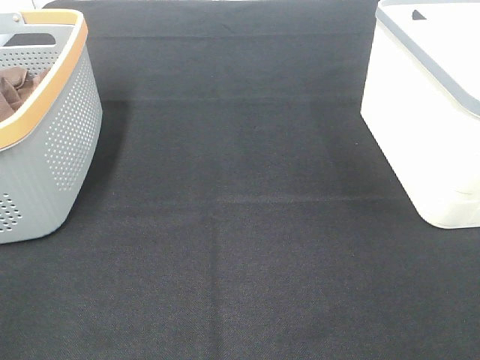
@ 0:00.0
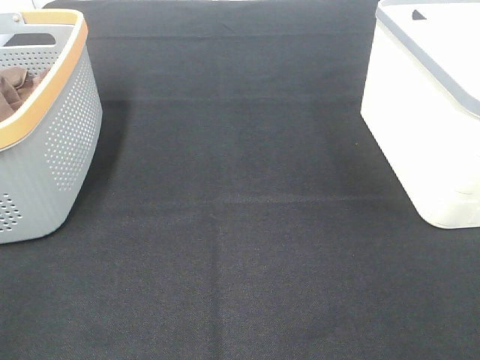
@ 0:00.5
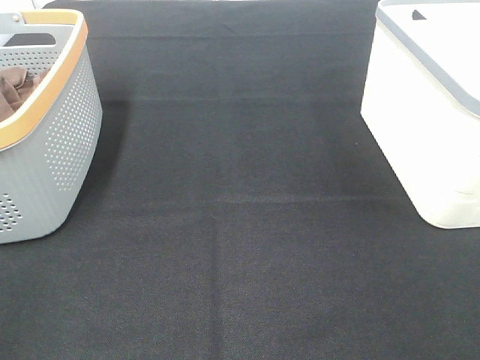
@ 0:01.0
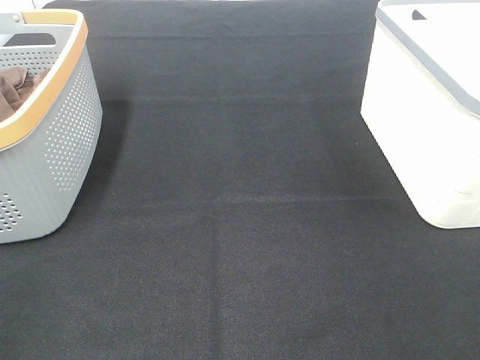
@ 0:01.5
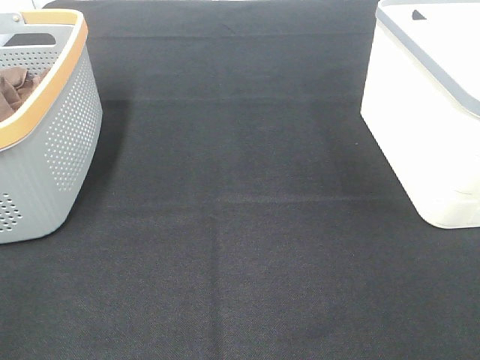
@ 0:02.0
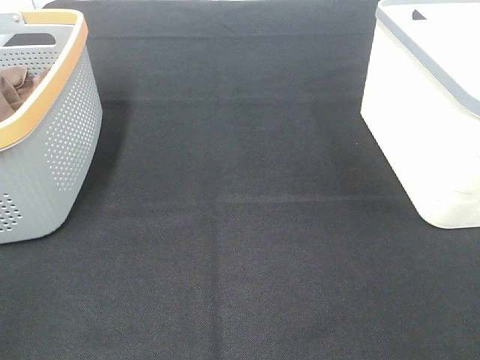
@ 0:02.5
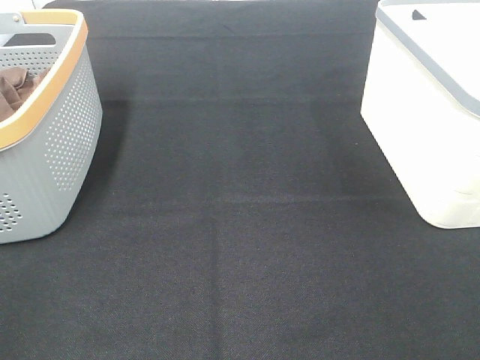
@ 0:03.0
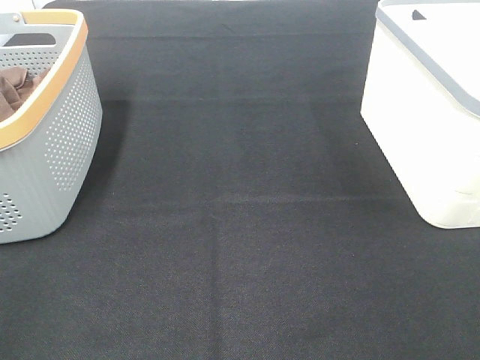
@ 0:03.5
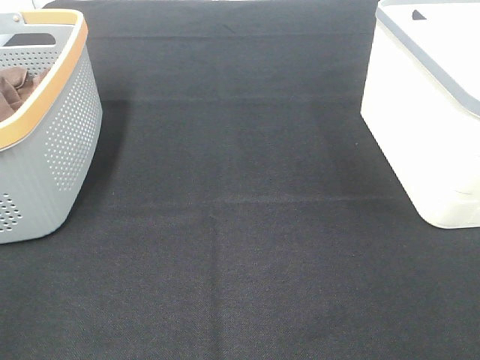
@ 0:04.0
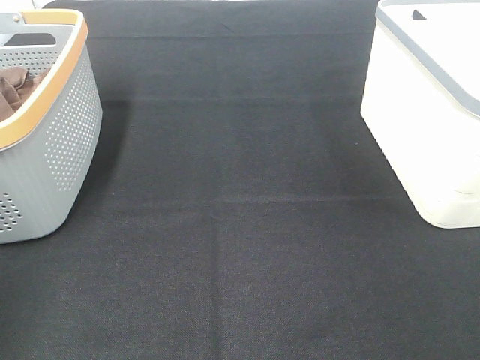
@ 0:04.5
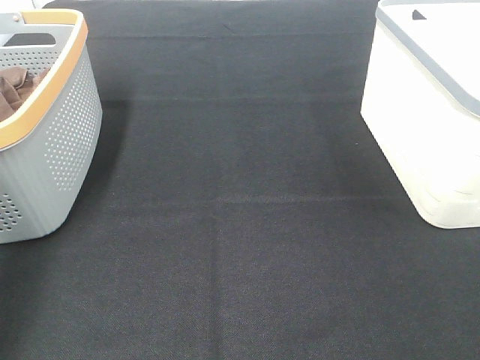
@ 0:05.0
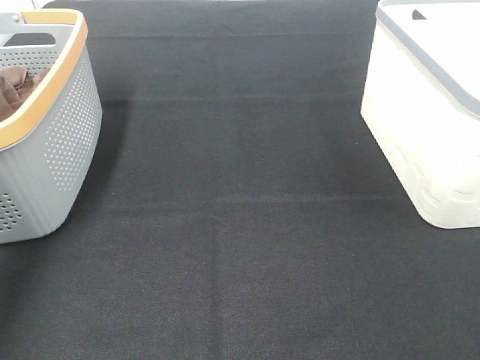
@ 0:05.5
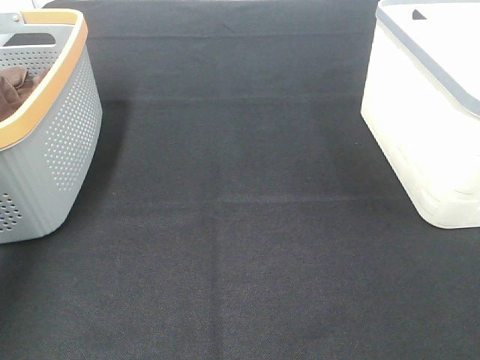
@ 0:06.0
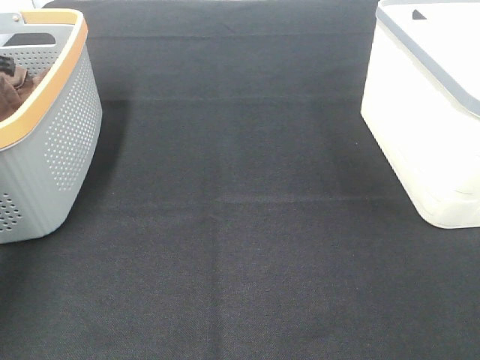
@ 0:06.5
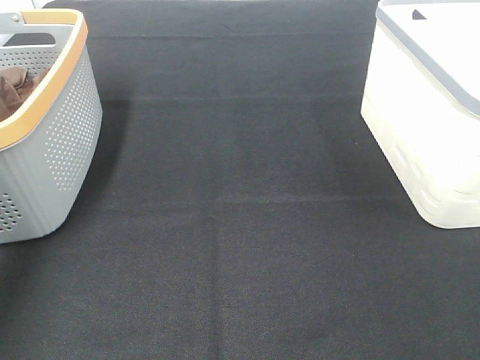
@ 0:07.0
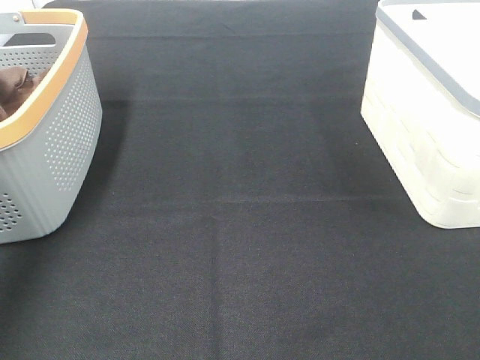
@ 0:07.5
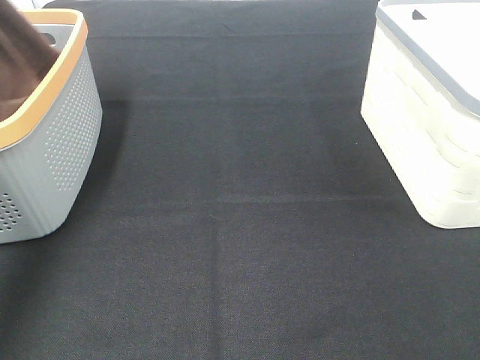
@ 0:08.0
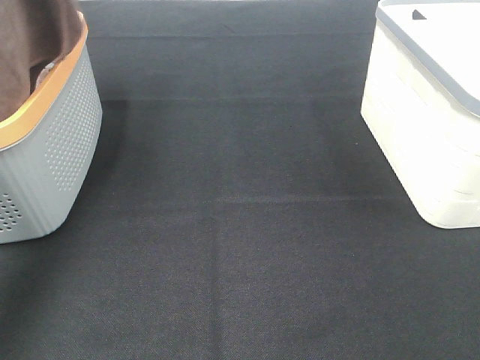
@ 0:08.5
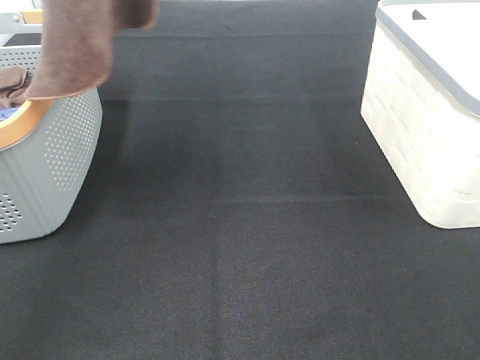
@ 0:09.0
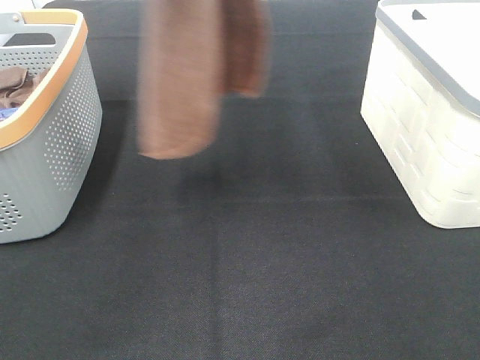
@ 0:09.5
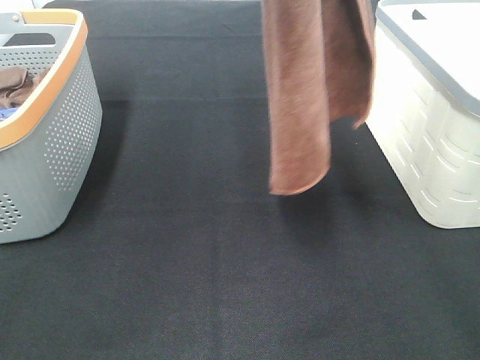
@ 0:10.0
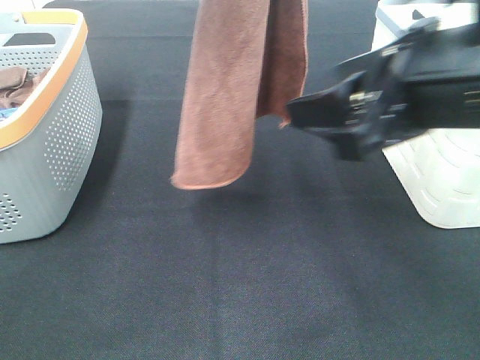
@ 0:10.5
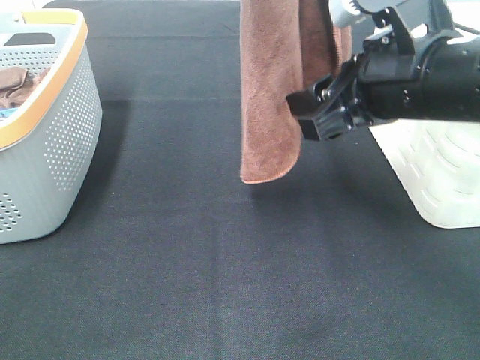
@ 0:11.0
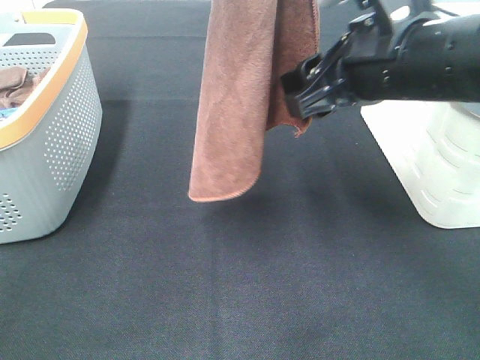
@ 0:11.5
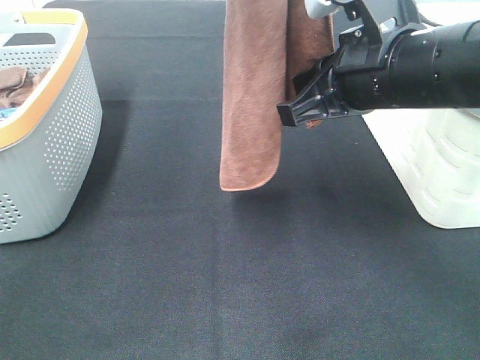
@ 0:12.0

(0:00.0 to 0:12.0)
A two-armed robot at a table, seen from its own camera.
Task of the whole recording: Remove the towel and place it.
0:00.0 - 0:04.0: The two grippers keep their place.
0:04.0 - 0:06.0: The left gripper is displaced forward by some 40 cm.
0:06.0 - 0:08.0: The left gripper is displaced upward and backward by some 20 cm, and closes its fingers.
0:08.0 - 0:10.0: The left gripper heads to the right, covering approximately 25 cm, while the right gripper moves forward and upward, about 15 cm.
0:10.0 - 0:12.0: The right gripper travels forward, to the left and downward by roughly 20 cm, and closes.

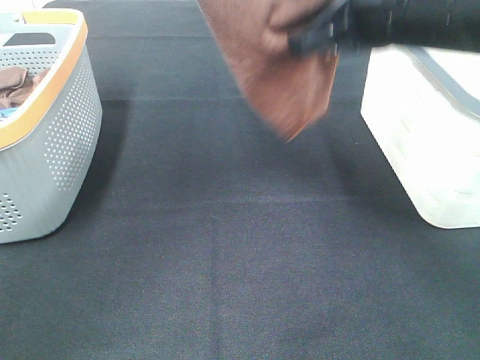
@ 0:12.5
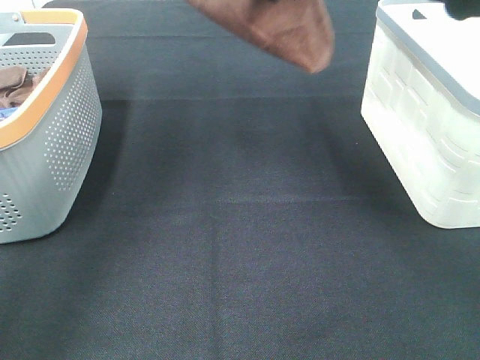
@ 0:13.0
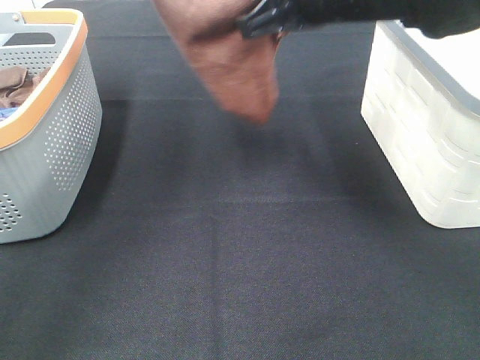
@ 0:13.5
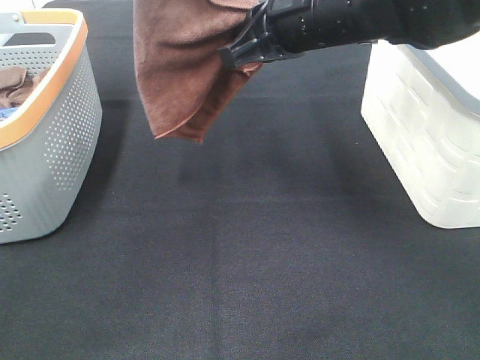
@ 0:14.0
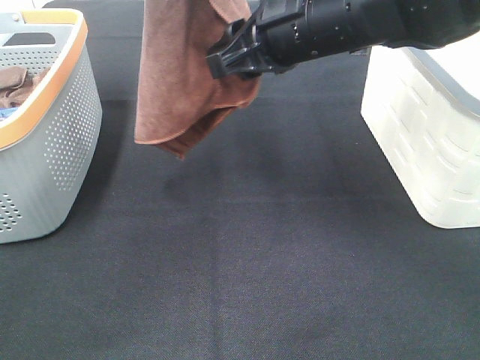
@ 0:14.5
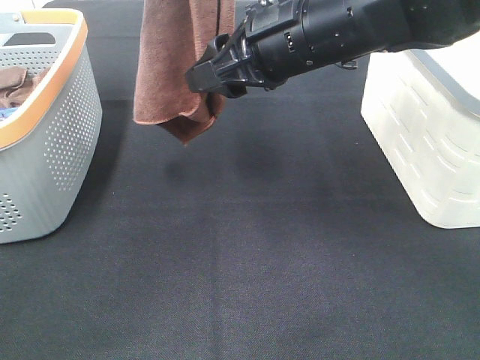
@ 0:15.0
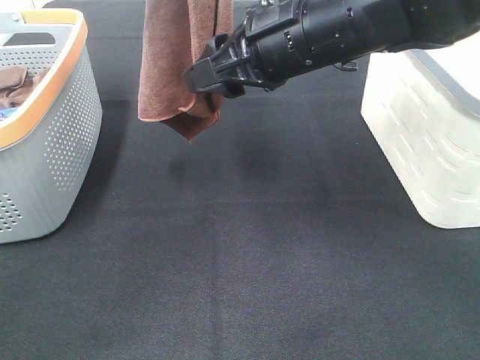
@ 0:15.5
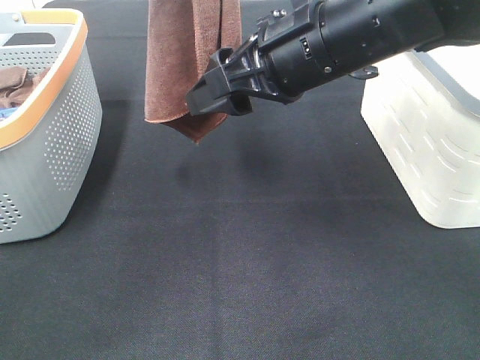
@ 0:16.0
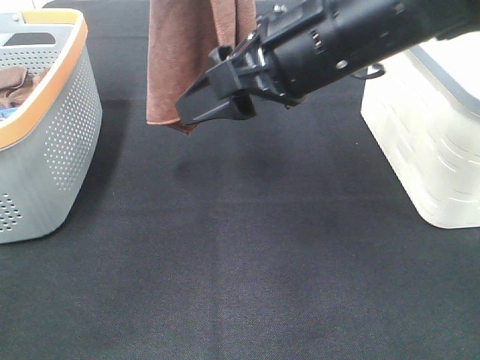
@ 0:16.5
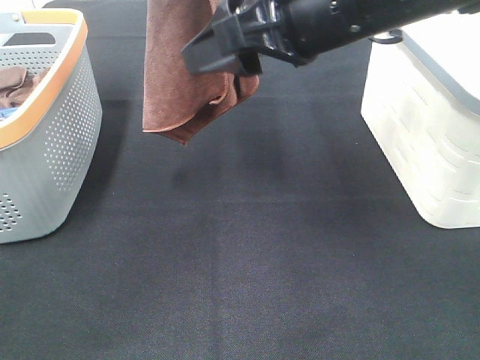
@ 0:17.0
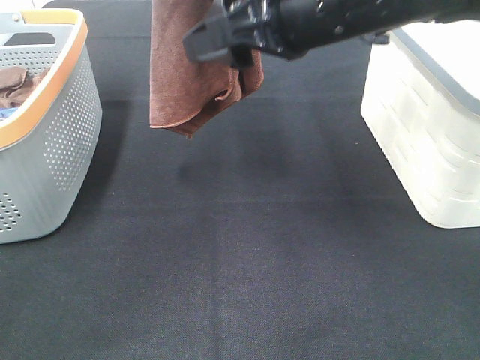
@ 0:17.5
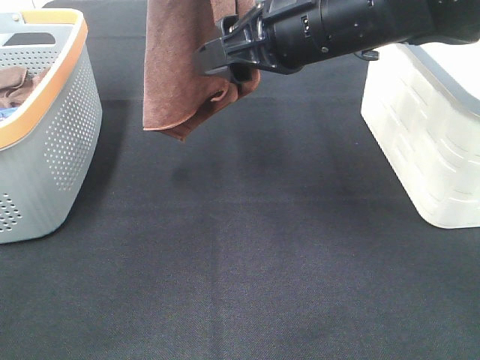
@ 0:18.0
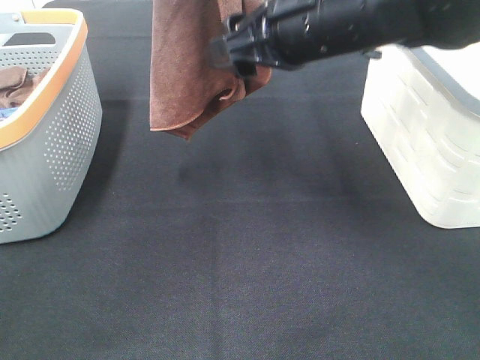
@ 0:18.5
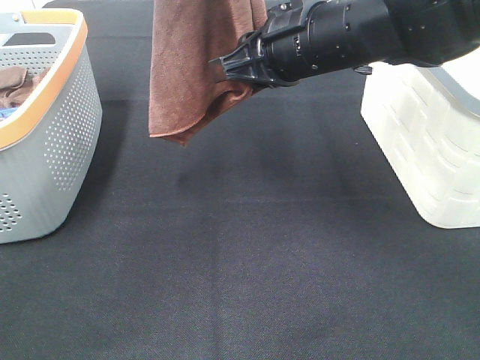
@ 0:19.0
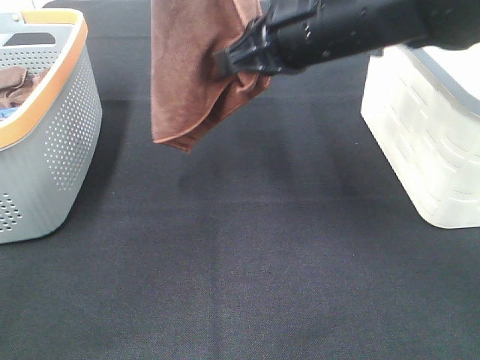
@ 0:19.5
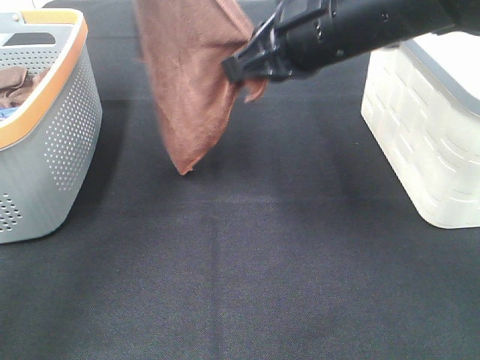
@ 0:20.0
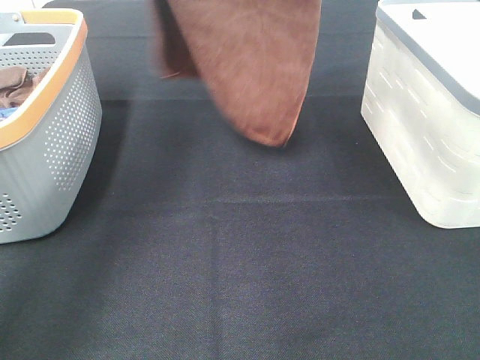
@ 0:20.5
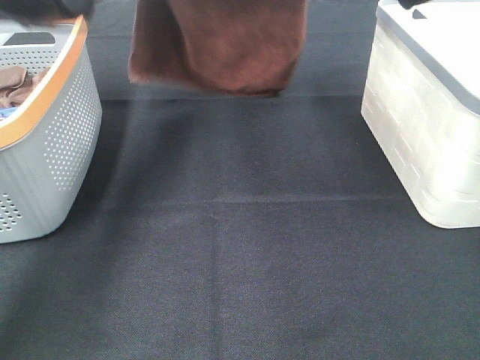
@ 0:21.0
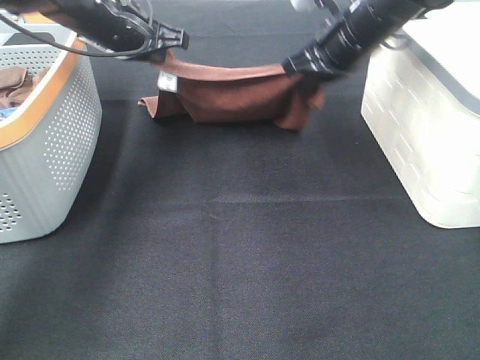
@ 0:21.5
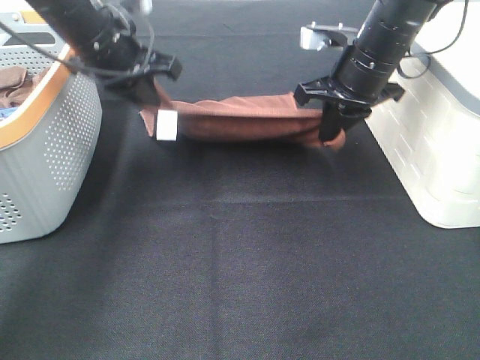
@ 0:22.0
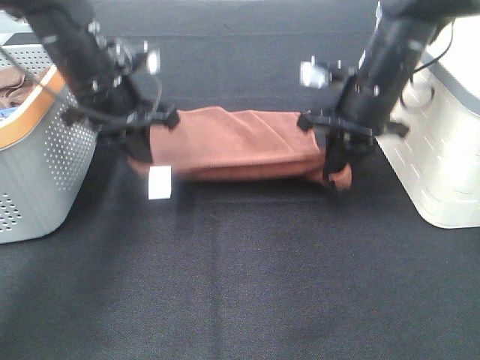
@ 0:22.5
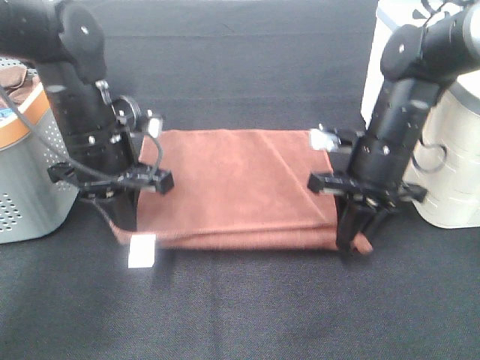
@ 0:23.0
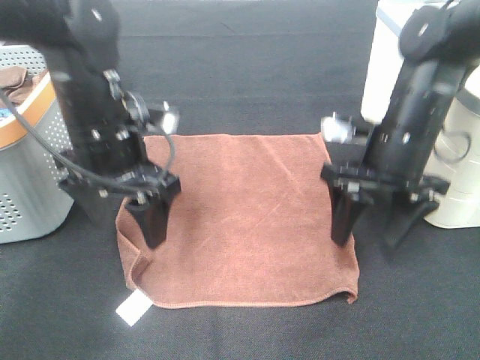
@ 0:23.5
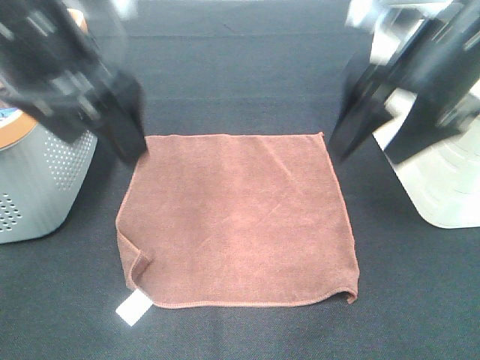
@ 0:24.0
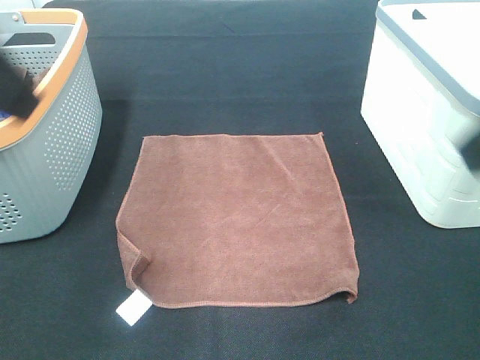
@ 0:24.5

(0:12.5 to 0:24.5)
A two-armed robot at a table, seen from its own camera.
Task of the whole recording: Remove the towel and place it.
Step, 0:12.5 - 0:16.0: Right hand: grab a corner of the brown towel and straighten it.
Step, 0:16.5 - 0:18.5: Right hand: spread the brown towel flat on the table.
0:12.5 - 0:14.5: The right gripper goes some 5 cm to the left, and opens its fingers. The left gripper goes downward and returns, about 5 cm each way.
0:14.5 - 0:16.5: The right gripper is displaced backward by roughly 5 cm.
0:16.5 - 0:18.5: The right gripper goes approximately 5 cm forward.
0:18.5 - 0:20.5: The left gripper goes about 15 cm forward and downward. The right gripper travels forward and to the right by roughly 10 cm, and closes up.
0:20.5 - 0:22.5: The right gripper heads downward, covering roughly 15 cm. The left gripper goes about 20 cm downward and backward.
0:22.5 - 0:24.5: Both grippers move backward and upward, approximately 30 cm. The left gripper opens; the right gripper opens its fingers.

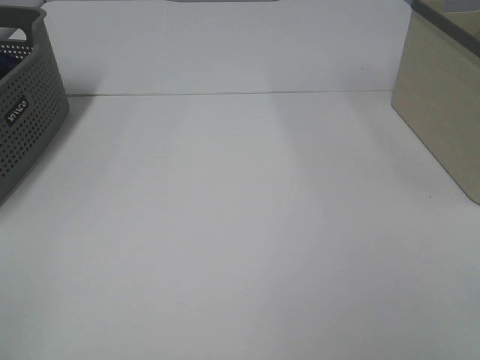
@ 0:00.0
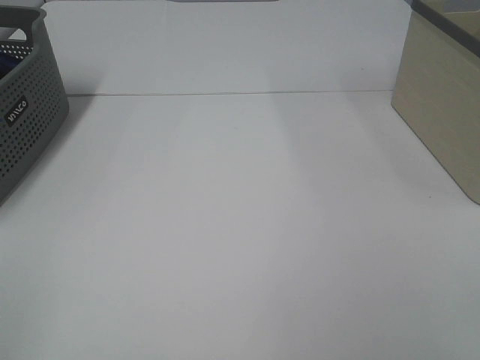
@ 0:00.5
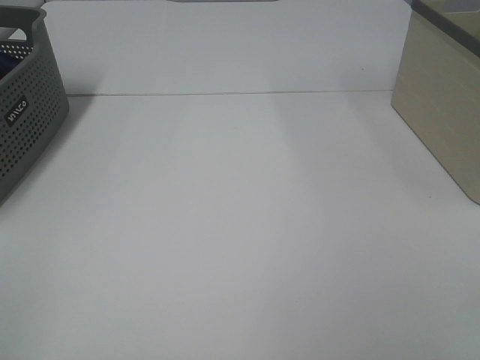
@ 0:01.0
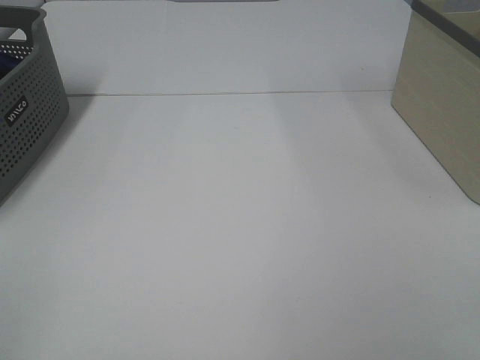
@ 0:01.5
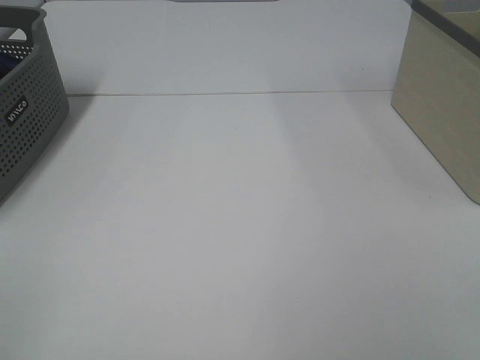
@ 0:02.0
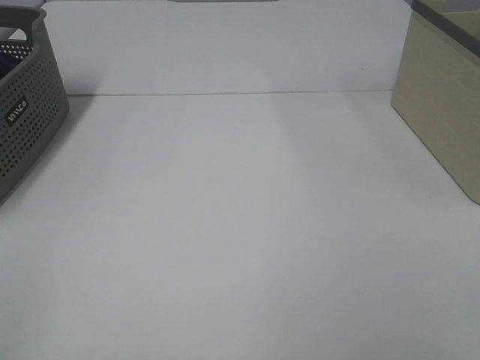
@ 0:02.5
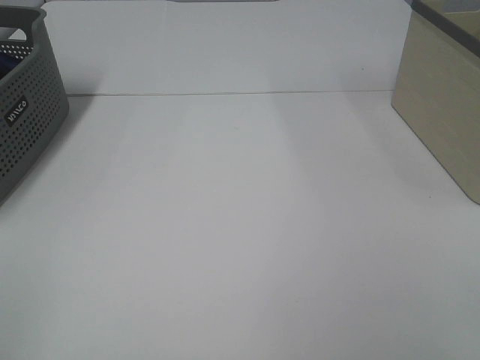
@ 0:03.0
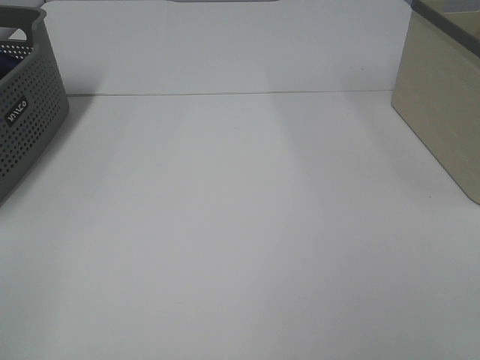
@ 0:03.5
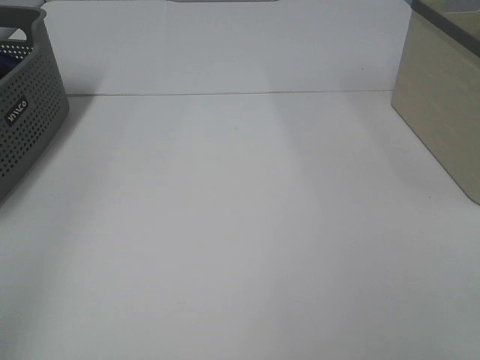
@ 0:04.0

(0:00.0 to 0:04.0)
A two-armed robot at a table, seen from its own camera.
Task of the whole recording: Remove the towel and place it.
0:00.0 - 0:02.0: The two grippers keep their place.
